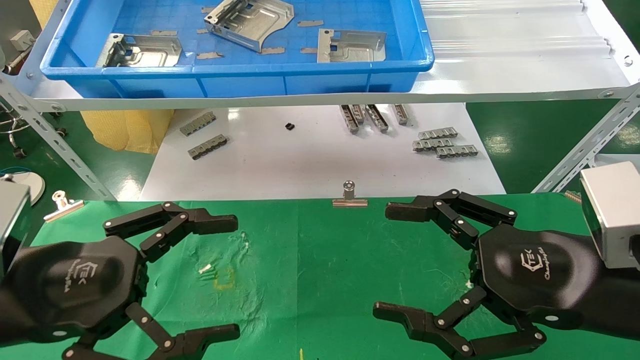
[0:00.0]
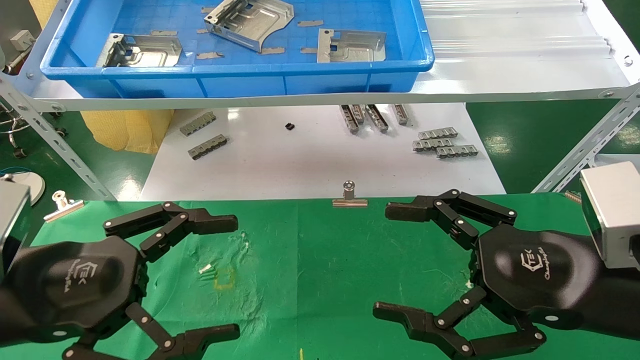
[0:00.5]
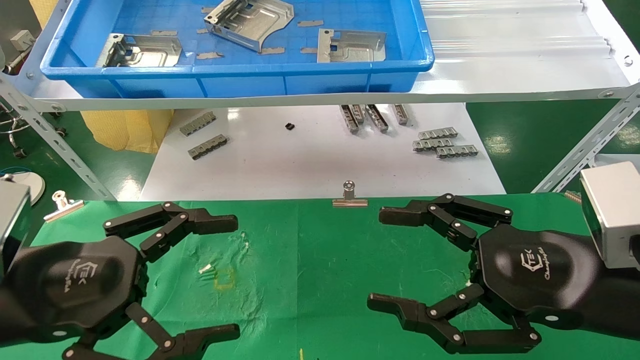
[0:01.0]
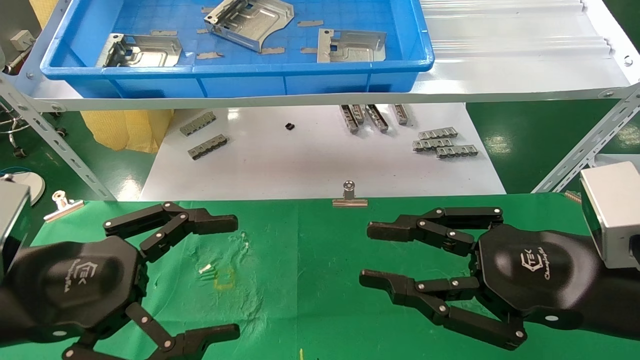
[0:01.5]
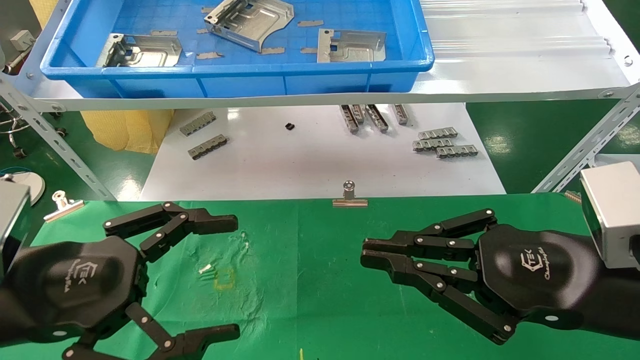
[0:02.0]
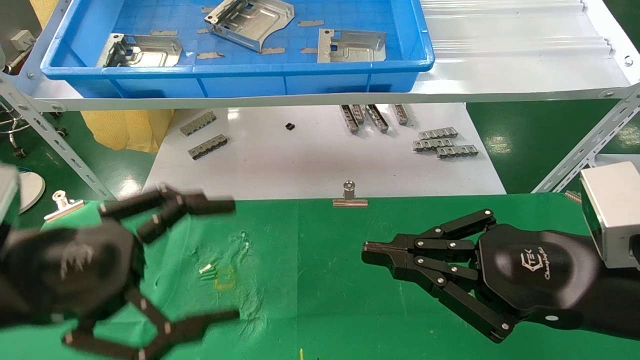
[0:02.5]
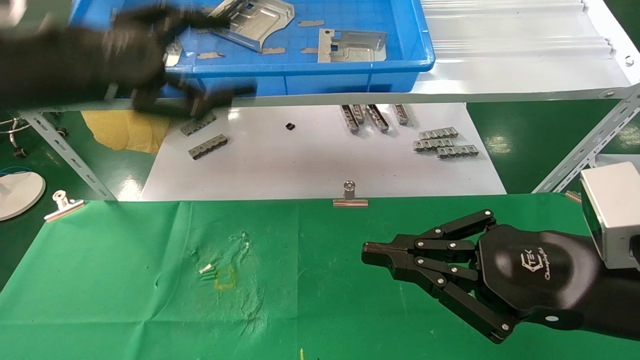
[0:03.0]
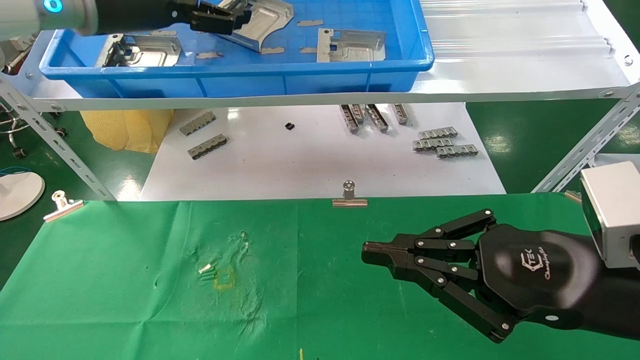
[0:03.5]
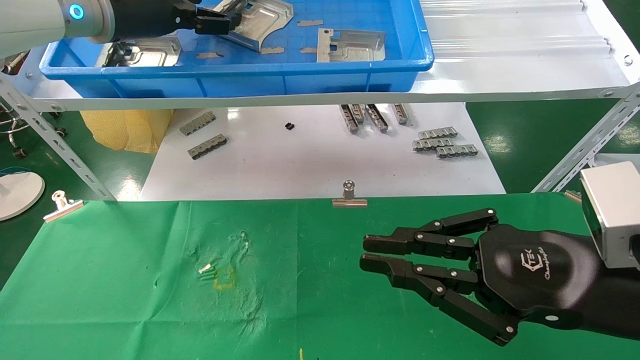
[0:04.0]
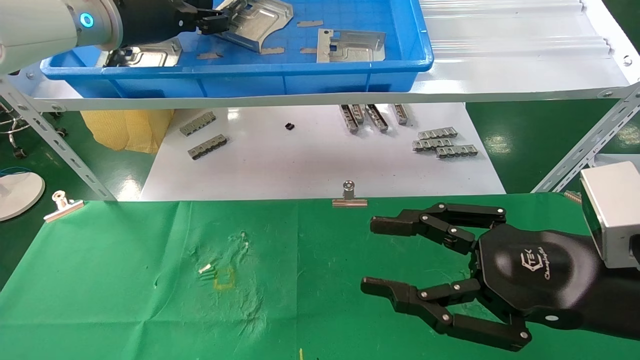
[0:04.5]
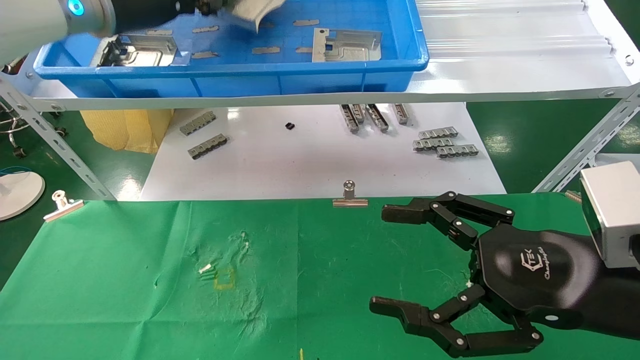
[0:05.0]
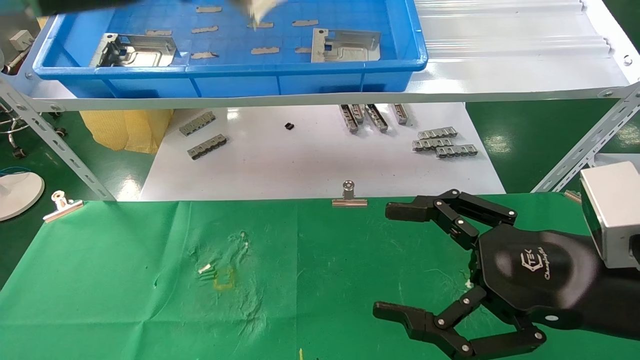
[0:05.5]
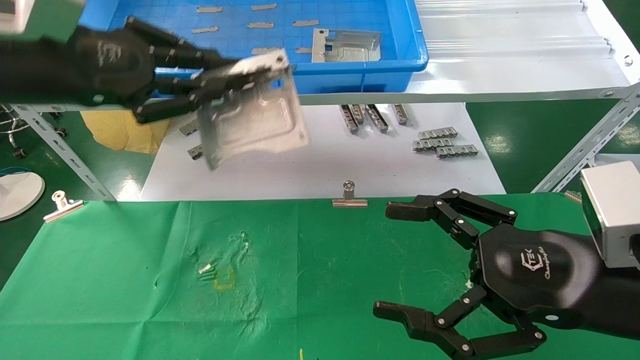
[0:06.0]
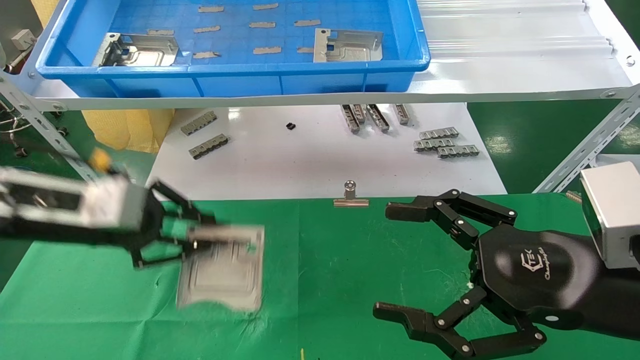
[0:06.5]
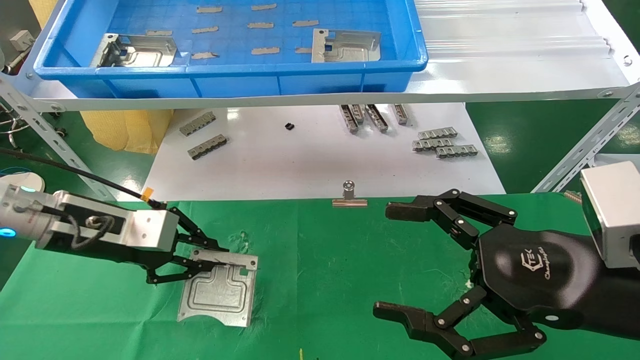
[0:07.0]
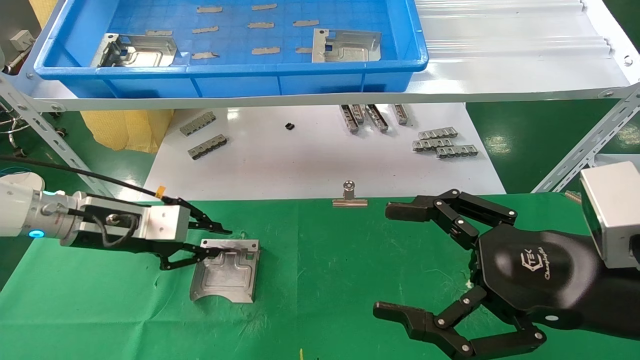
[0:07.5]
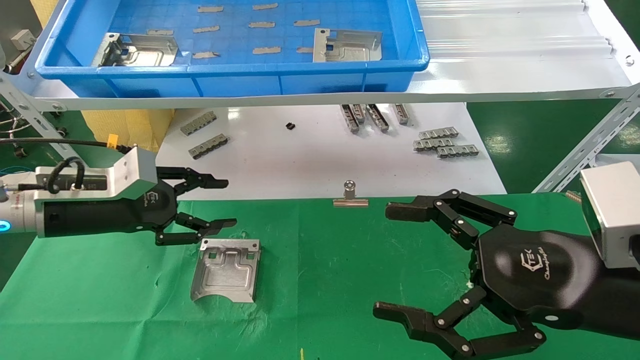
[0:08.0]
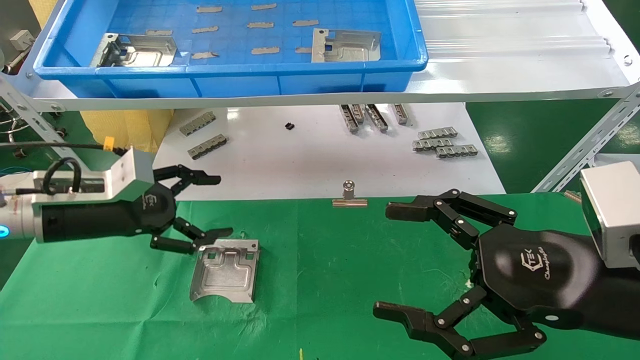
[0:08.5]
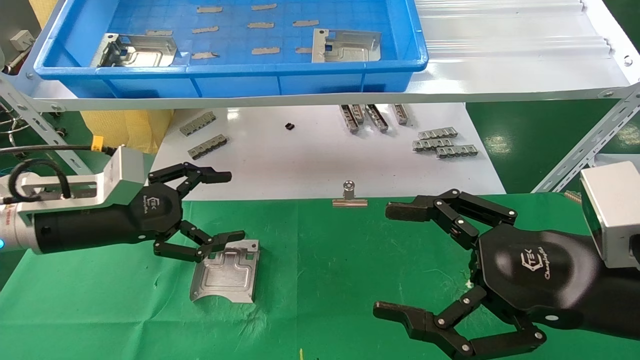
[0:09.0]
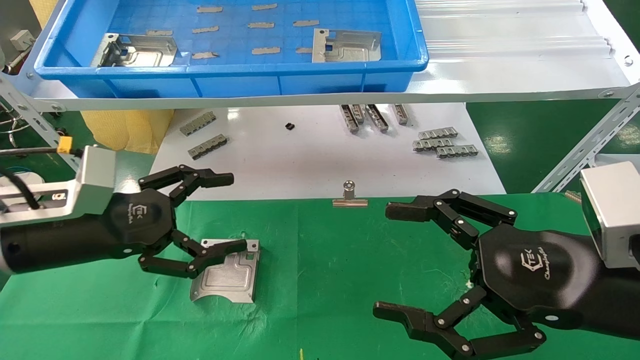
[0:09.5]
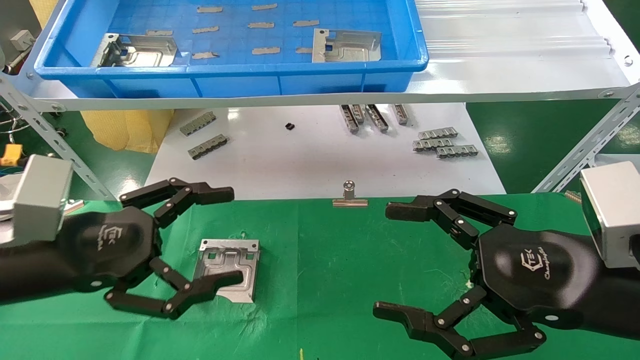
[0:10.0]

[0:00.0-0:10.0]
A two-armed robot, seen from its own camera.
Task of the whole recording: use the mechanical arm to pick up the parts and place them on the table.
Step, 0:03.0 to 0:04.5: Pick up the hard drive bracket from the feeding area.
Step, 0:05.0 to 0:07.5: Place the hard drive bracket into the box.
0:00.0 to 0:02.0: The right gripper closes up.
0:02.0 to 0:04.0: The left gripper heads forward and upward, covering roughly 35 cm.
0:04.0 to 0:06.0: The right gripper opens; the left gripper shifts some 15 cm backward and downward, and closes its fingers.
0:06.0 to 0:08.0: The left gripper goes roughly 20 cm downward and forward, and opens up.
0:08.0 to 0:10.0: The left gripper moves backward, some 10 cm, and opens.
